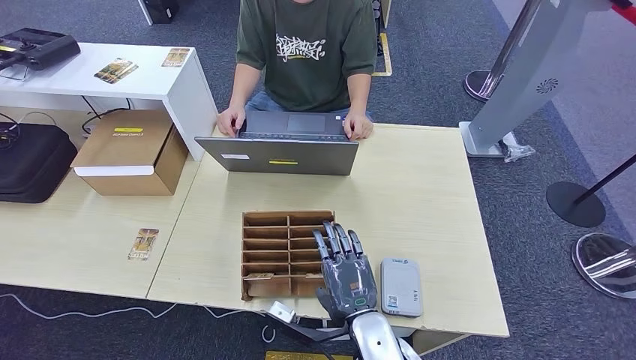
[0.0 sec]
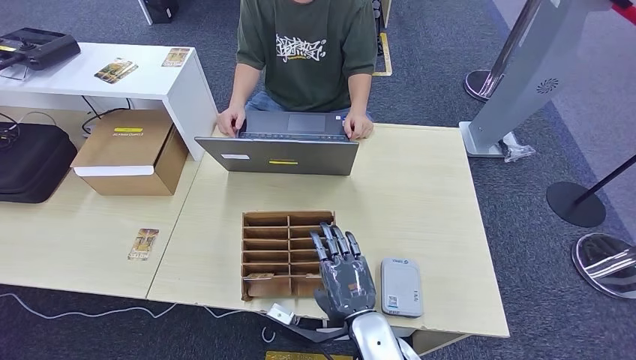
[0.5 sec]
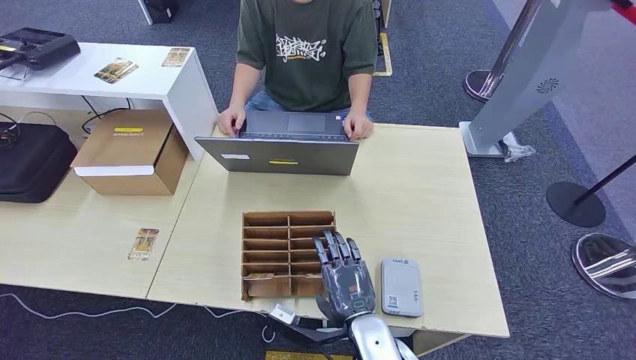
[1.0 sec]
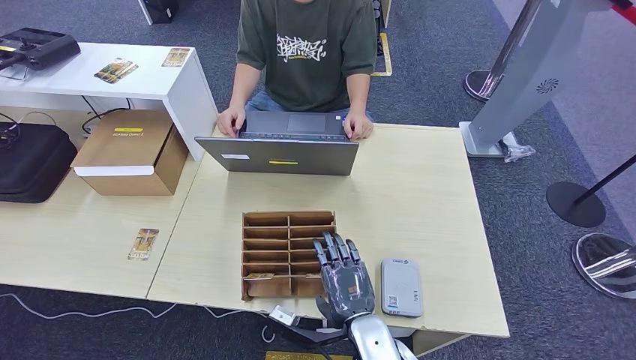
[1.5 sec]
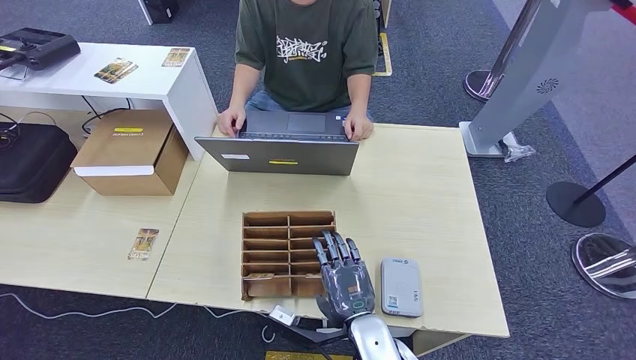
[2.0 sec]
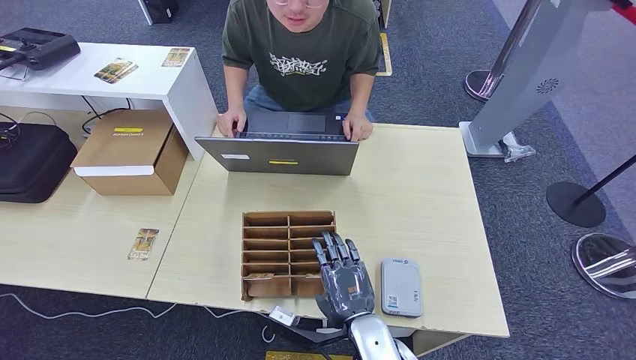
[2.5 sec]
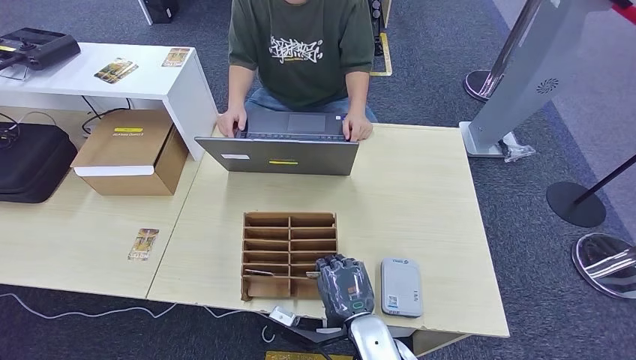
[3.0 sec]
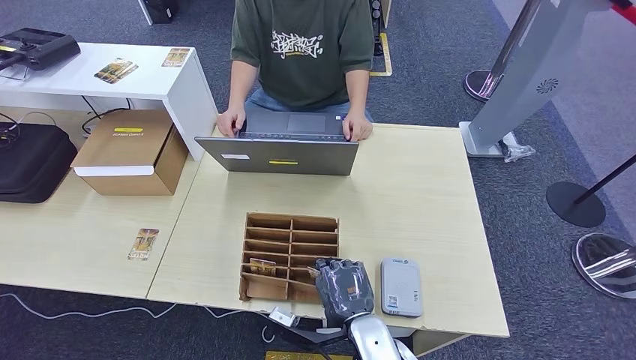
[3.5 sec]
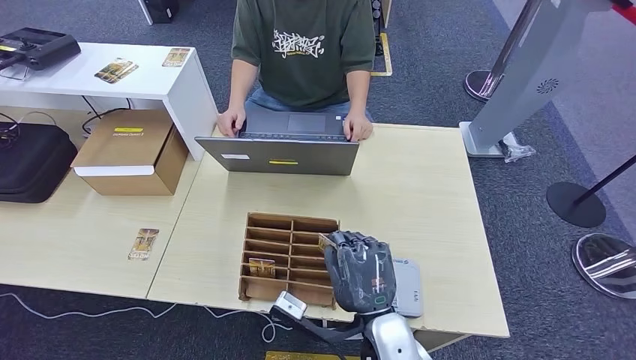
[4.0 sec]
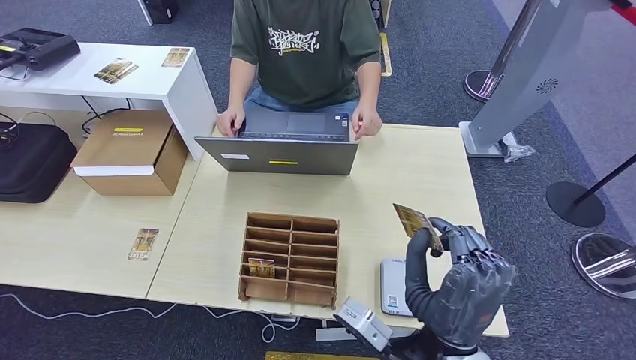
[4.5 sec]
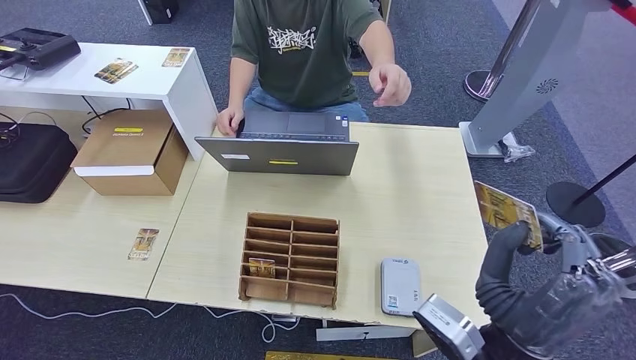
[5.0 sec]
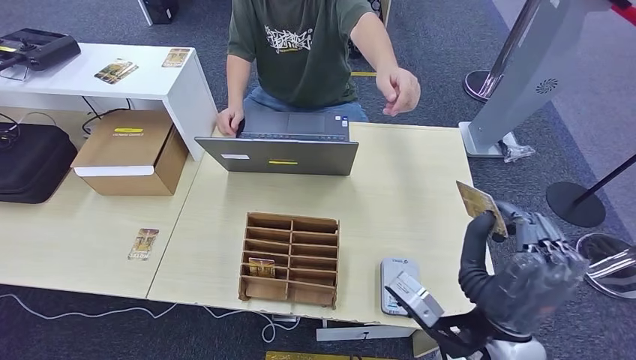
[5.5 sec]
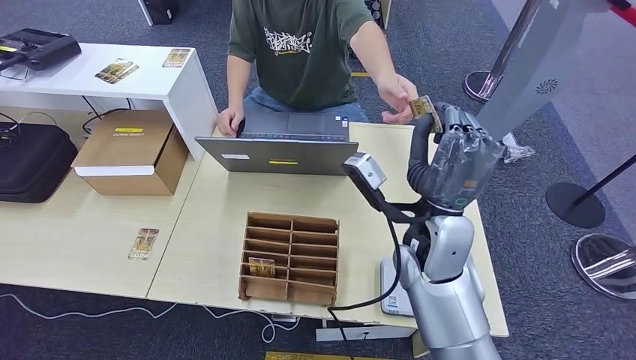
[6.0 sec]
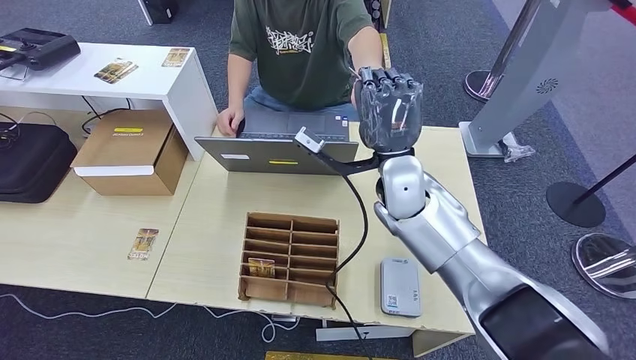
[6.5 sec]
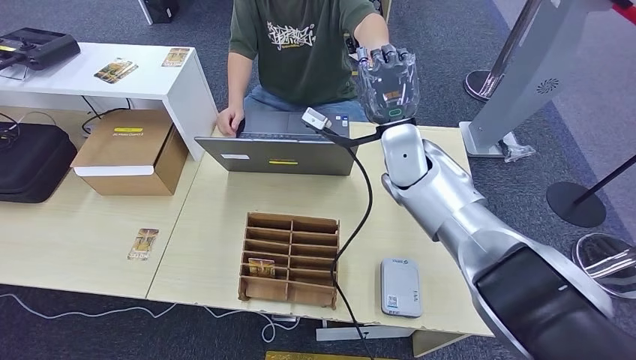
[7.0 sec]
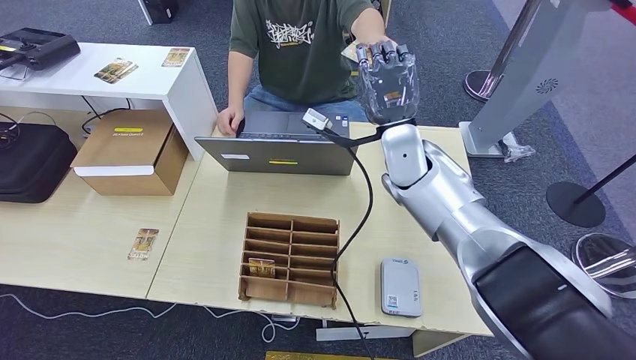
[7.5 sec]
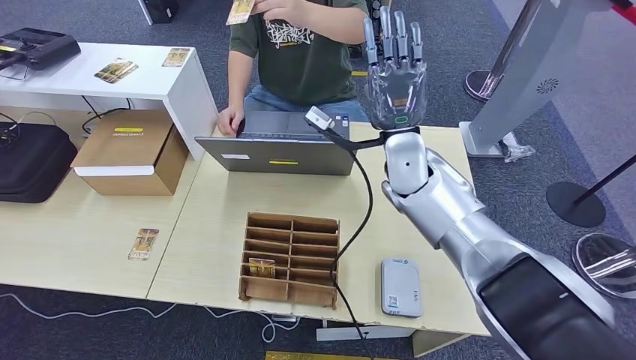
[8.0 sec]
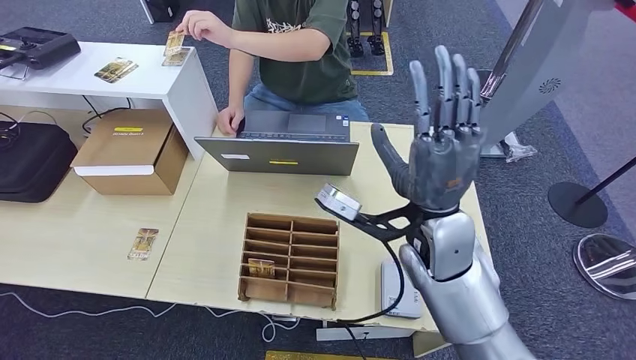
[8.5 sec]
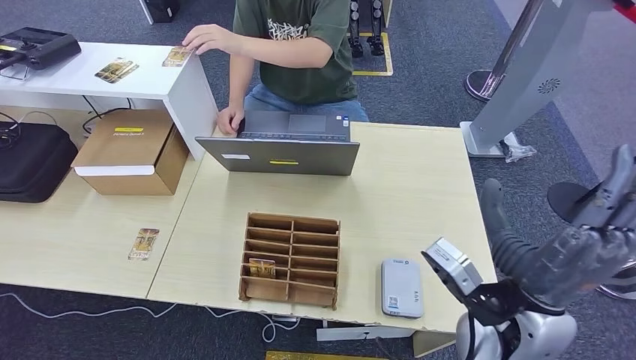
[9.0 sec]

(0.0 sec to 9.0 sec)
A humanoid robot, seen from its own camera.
Step, 0.0 sec - 4.0 sec: Pick up the room key from the key card box.
Step, 4.5 sec - 9.0 sec: Hand the room key to the person.
0.0 sec - 2.0 sec: The hands move only a little.
2.0 sec - 4.5 sec: The right hand is displaced upward and to the right by approximately 15 cm.
4.5 sec - 7.0 sec: The right hand heads forward, covering some 30 cm.
7.0 sec - 9.0 sec: The right hand is displaced backward by roughly 25 cm.
